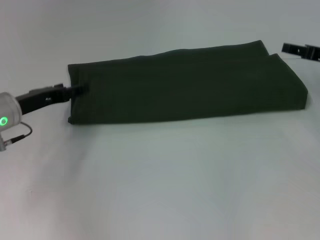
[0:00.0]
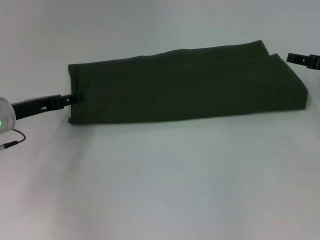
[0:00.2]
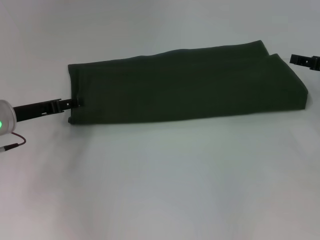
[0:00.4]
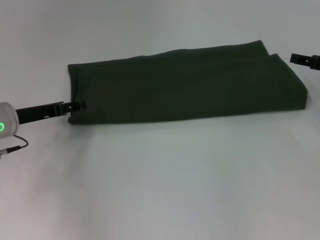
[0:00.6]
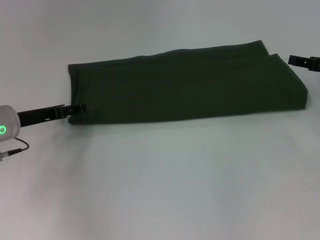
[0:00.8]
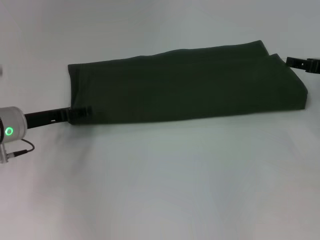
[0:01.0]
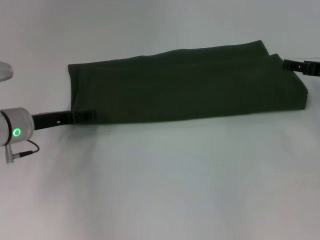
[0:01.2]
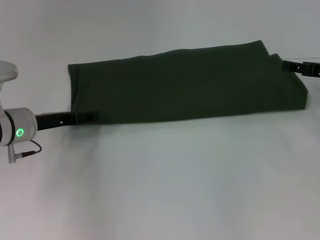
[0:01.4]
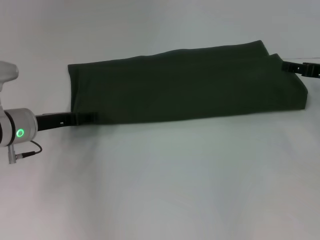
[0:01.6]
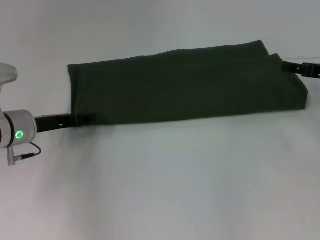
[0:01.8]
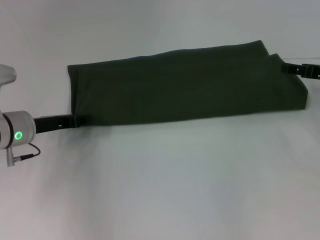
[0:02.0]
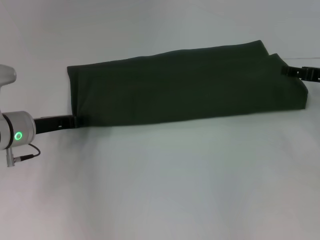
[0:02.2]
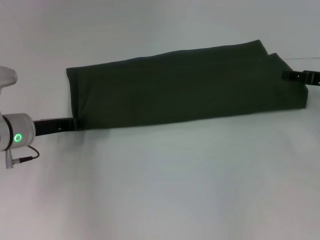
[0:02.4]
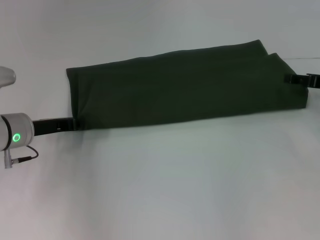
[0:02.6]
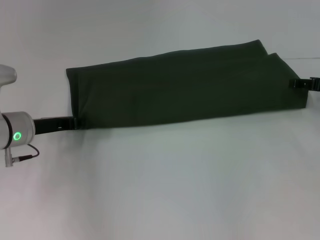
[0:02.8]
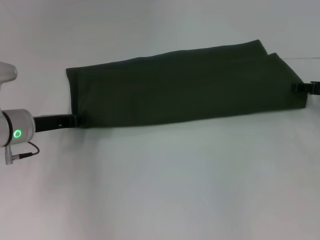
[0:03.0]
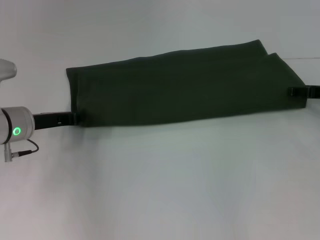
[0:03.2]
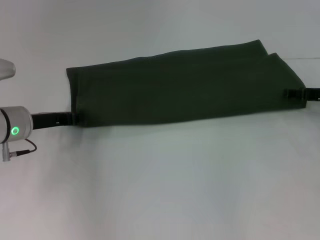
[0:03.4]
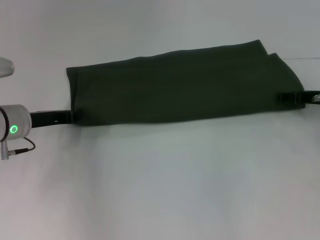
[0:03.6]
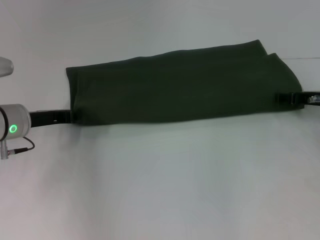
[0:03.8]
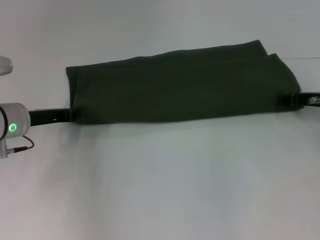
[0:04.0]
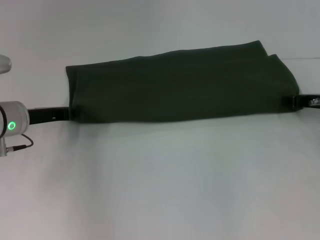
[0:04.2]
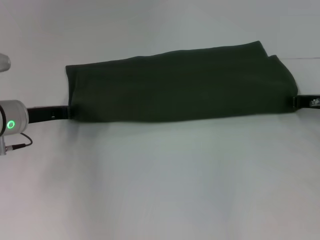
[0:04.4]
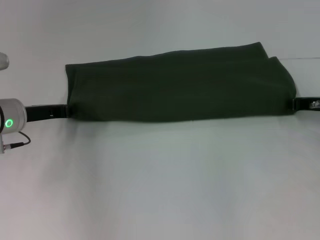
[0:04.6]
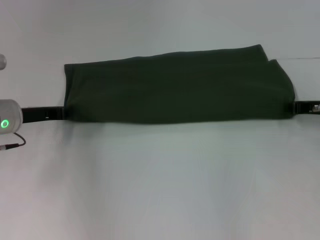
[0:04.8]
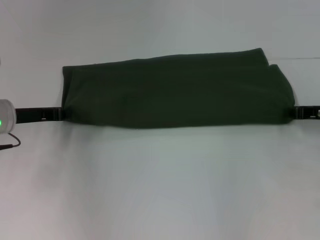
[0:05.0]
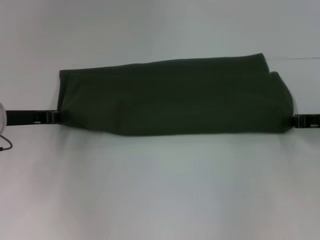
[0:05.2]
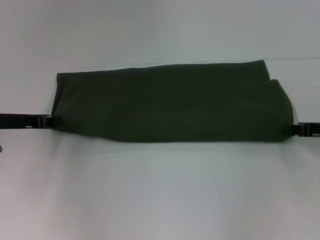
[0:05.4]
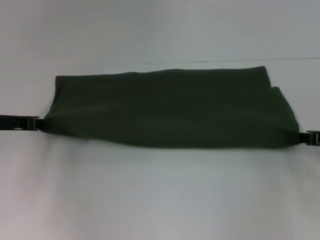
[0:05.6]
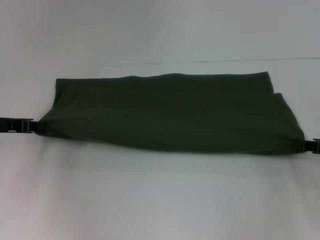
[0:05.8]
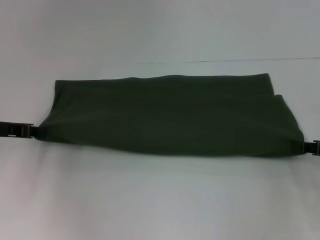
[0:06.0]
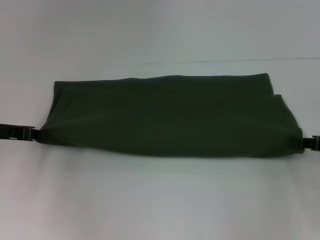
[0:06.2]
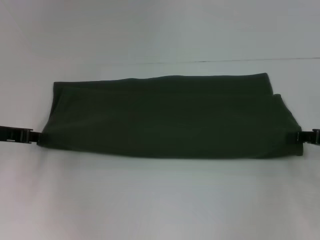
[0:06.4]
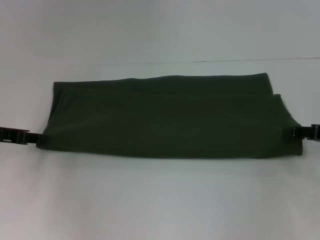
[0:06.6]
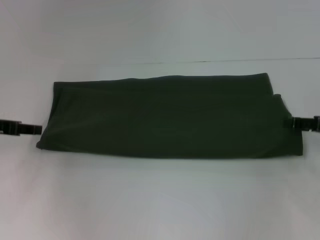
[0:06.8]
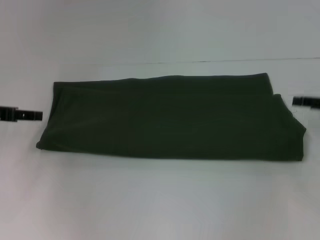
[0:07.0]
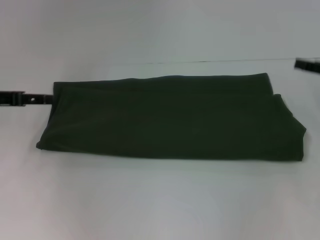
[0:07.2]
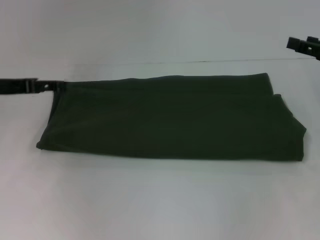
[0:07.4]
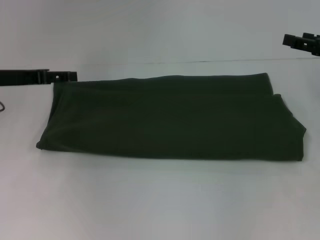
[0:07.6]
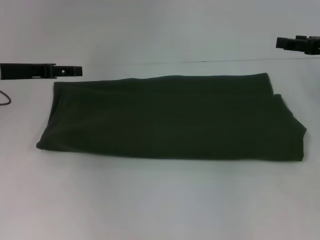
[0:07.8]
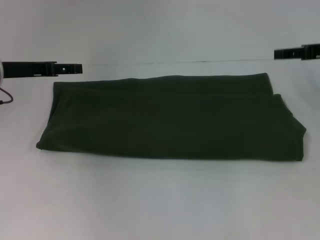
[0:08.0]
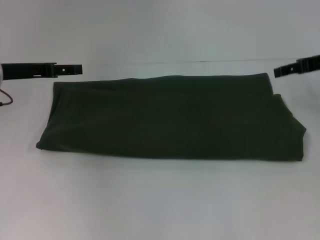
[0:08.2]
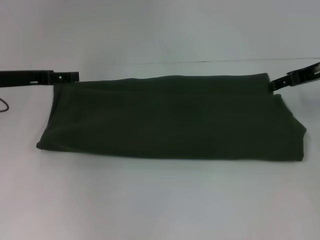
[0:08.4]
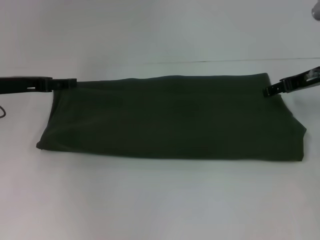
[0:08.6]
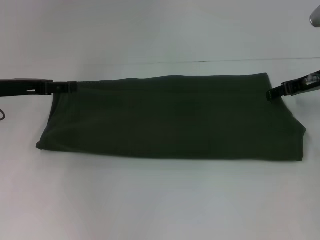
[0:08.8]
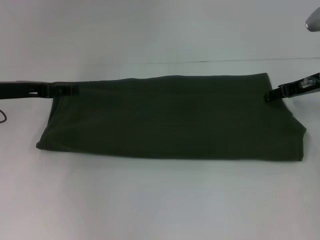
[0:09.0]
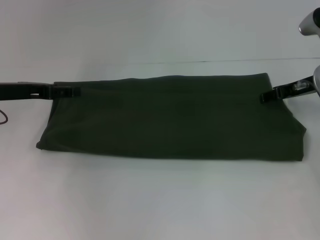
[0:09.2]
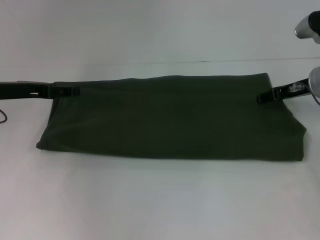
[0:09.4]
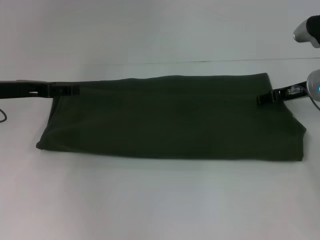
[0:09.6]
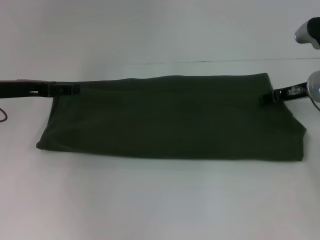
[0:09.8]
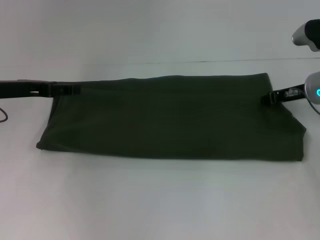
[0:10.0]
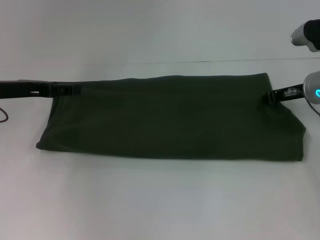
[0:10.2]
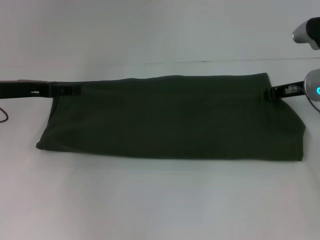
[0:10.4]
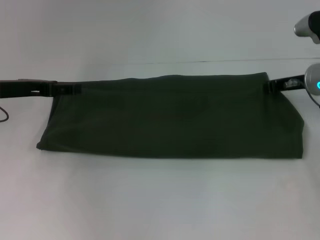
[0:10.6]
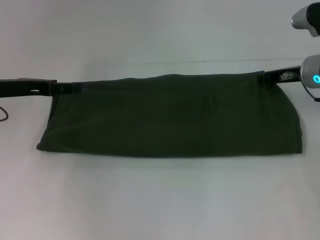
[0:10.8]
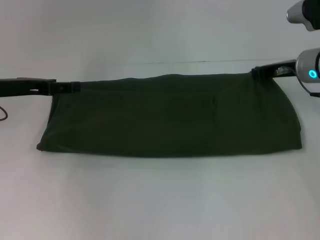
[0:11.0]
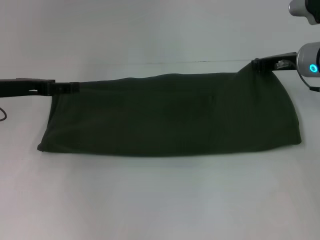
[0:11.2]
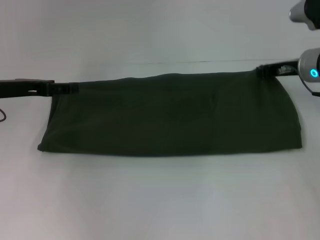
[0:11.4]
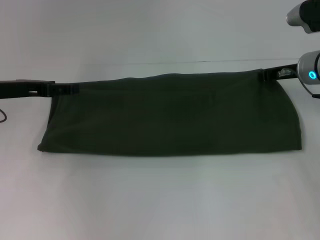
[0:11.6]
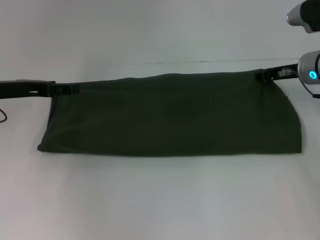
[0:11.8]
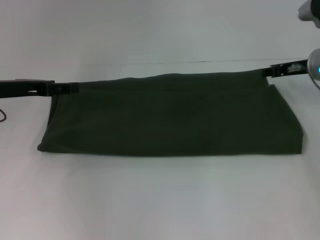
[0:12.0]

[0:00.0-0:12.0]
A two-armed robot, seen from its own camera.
Step, 0:00.0 to 0:06.4: Pull the clothes with your left hand.
Step, 0:00.0 to 0:06.4: Pull the clothes with your right hand.
0:00.0 to 0:01.6: The grippers stay close to where they were, moving slightly.
0:01.6 to 0:03.0: The left gripper closes up.
0:03.0 to 0:04.4: The right gripper closes.
0:04.4 to 0:06.0: The right gripper shifts some 10 cm backward; the left gripper heads to the left, covering some 5 cm.
0:06.0 to 0:07.6: The right gripper goes approximately 10 cm forward and upward, and opens. Meanwhile the left gripper ends up approximately 5 cm from where it was, and opens.
0:07.6 to 0:09.0: The right gripper moves to the left, roughly 5 cm.
0:09.0 to 0:10.4: The right gripper closes.
0:10.4 to 0:12.0: The grippers stay close to where they were, moving slightly.

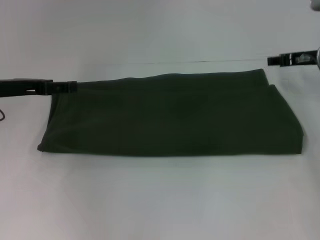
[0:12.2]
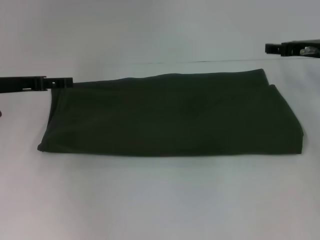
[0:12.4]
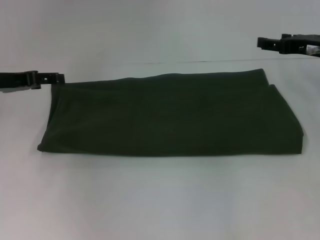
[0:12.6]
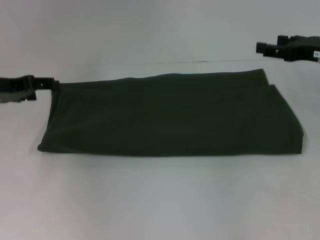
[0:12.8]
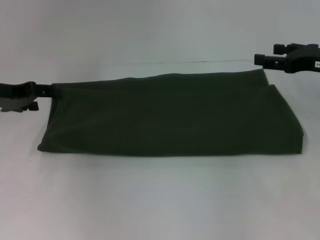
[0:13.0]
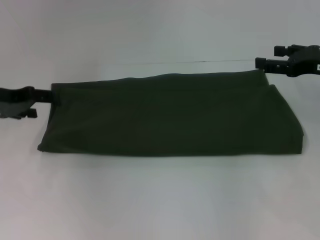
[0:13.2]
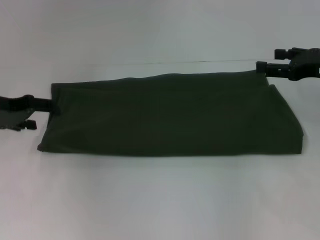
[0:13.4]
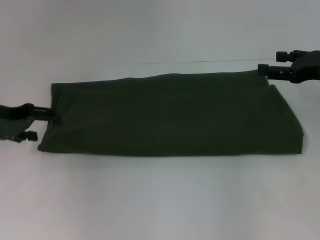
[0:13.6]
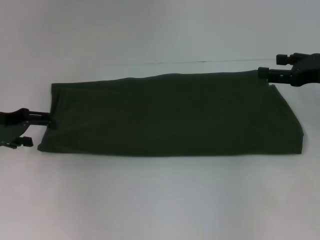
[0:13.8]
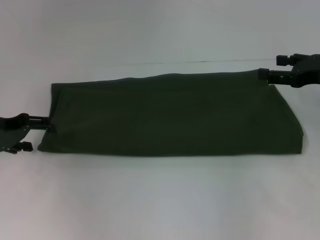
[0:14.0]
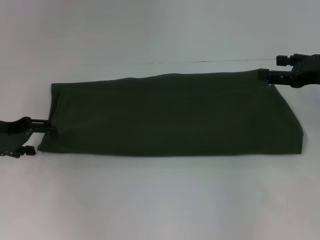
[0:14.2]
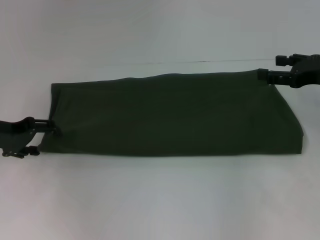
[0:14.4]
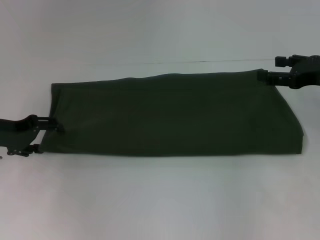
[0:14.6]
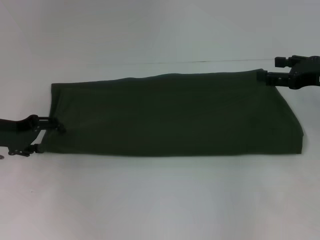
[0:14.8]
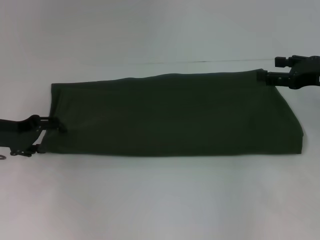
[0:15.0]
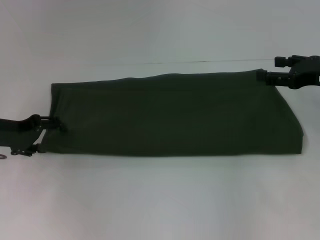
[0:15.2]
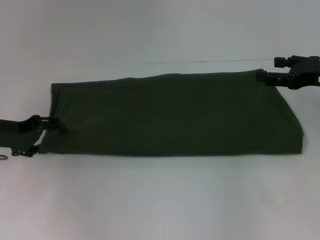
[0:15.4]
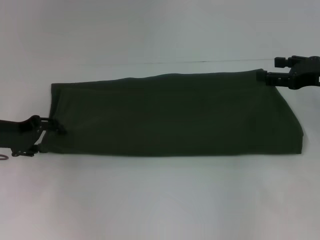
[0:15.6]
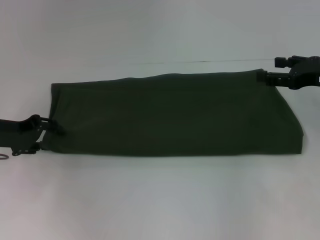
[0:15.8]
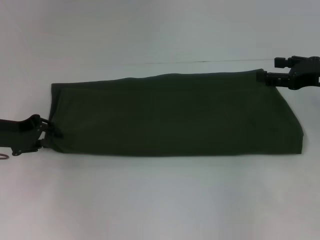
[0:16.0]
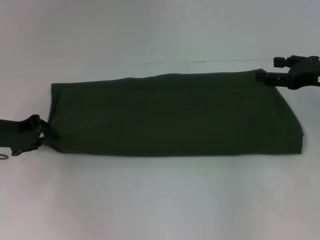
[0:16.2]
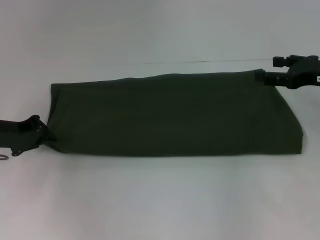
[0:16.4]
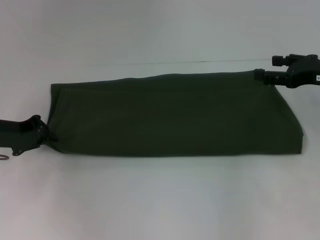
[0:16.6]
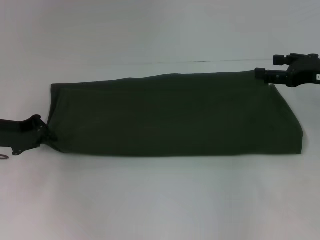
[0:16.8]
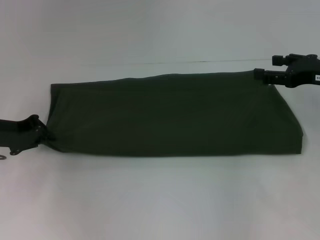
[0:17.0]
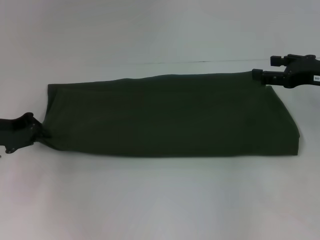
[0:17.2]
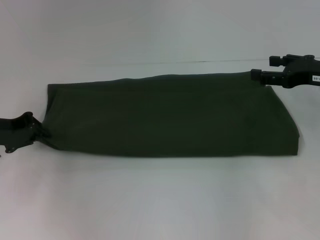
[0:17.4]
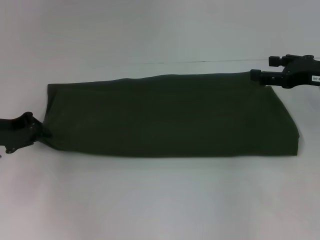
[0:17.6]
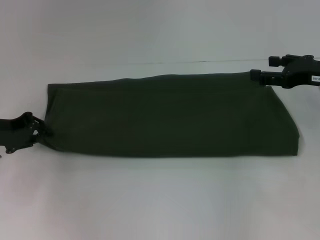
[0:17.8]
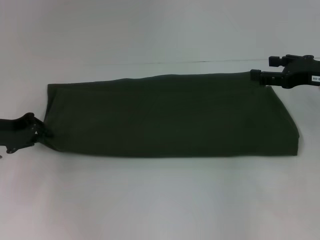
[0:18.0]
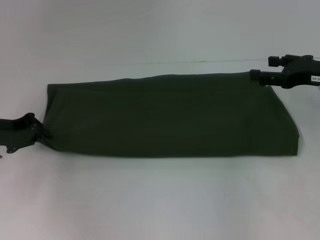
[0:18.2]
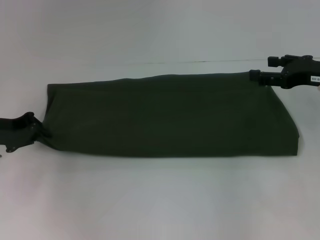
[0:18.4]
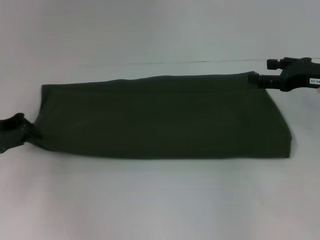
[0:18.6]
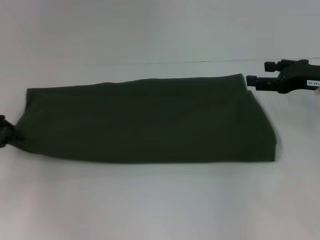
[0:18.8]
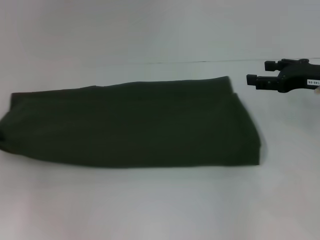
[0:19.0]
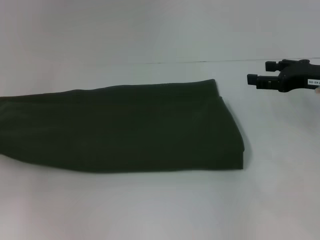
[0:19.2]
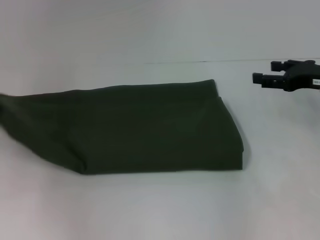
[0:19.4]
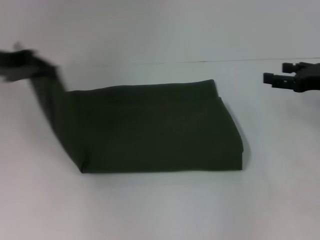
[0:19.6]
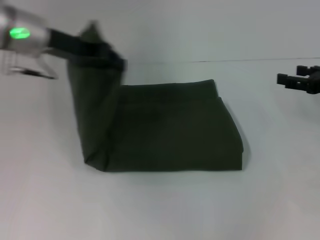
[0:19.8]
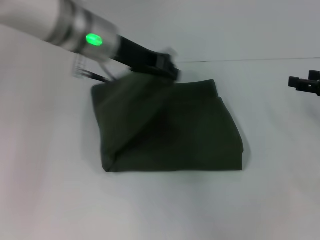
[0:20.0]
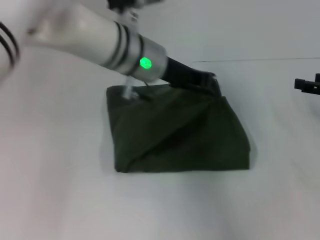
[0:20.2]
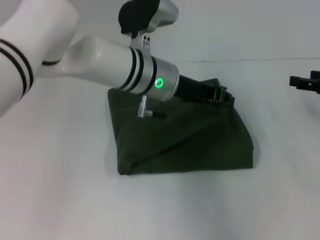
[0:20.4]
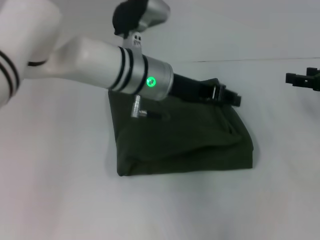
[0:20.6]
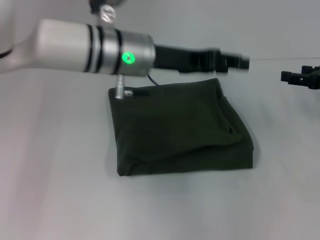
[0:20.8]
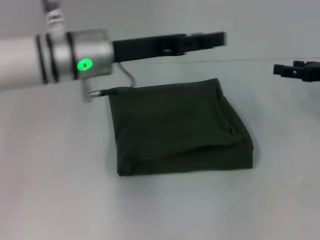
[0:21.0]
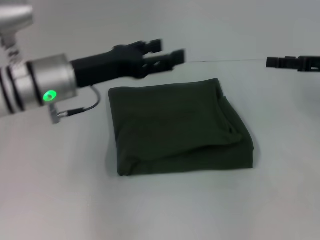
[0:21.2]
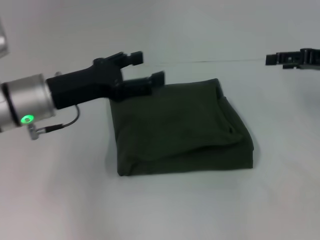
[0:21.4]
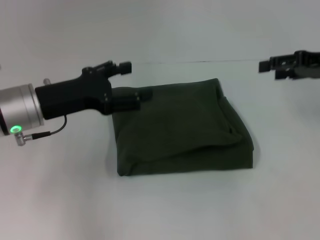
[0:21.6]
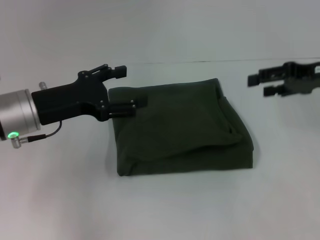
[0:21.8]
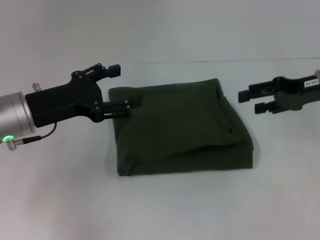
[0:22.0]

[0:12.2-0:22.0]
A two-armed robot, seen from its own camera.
Step, 0:12.2 to 0:20.4: Fold the clothes with your left hand.
0:12.2 to 0:13.6: The right gripper travels backward by about 5 cm.
0:13.6 to 0:15.0: The grippers make only small movements.
0:15.0 to 0:16.4: The left gripper closes up.
0:16.4 to 0:17.8: Neither gripper changes place.
0:17.8 to 0:19.2: The left gripper shifts about 10 cm to the left and upward.
0:19.2 to 0:20.6: The left gripper is displaced to the right by about 35 cm; the right gripper moves to the right, about 5 cm.
0:20.6 to 0:22.0: The right gripper goes roughly 5 cm to the left. The left gripper goes approximately 20 cm to the left, and opens its fingers.
